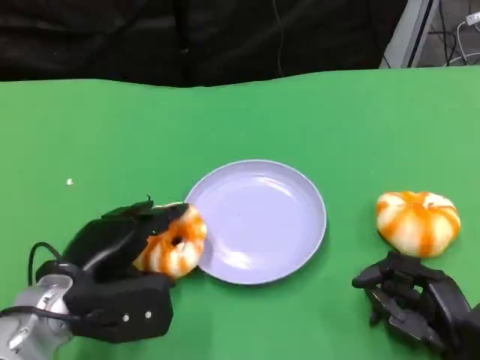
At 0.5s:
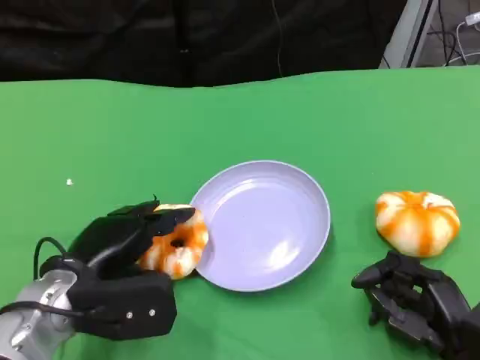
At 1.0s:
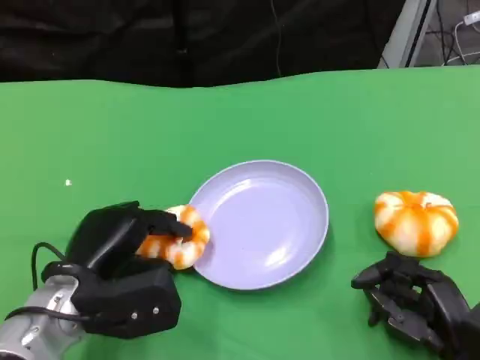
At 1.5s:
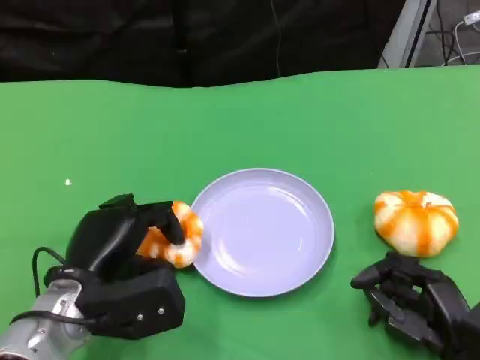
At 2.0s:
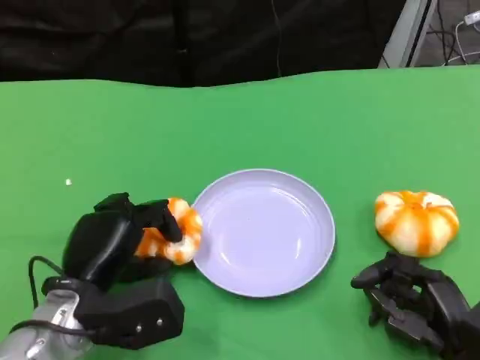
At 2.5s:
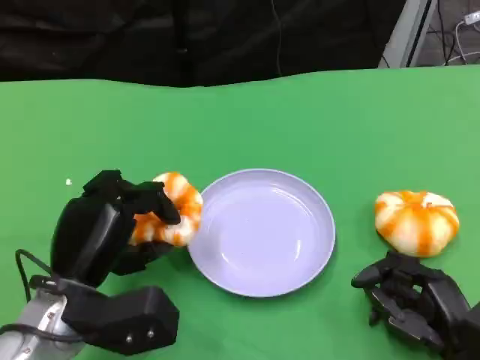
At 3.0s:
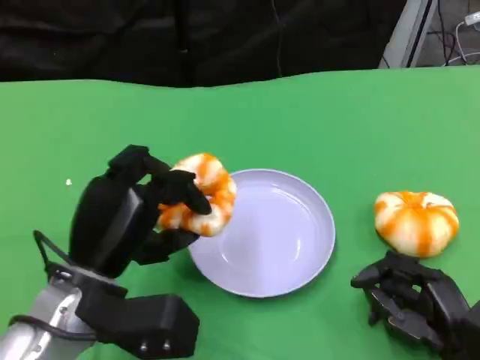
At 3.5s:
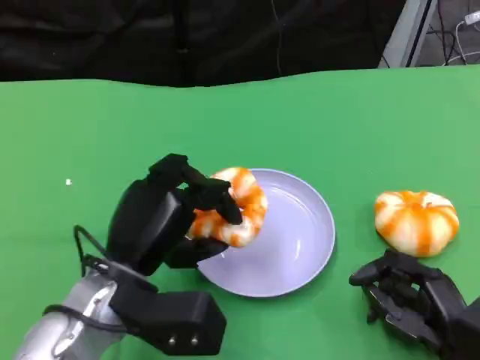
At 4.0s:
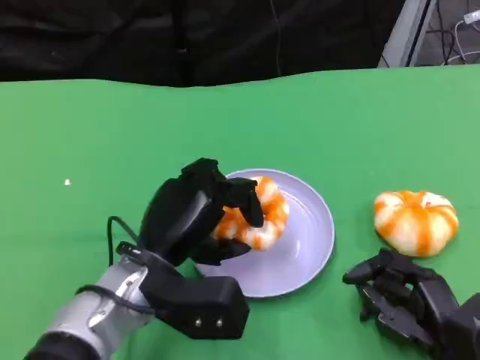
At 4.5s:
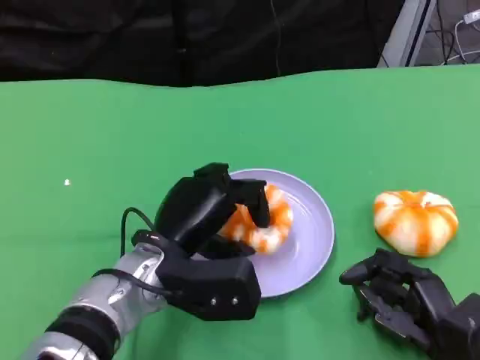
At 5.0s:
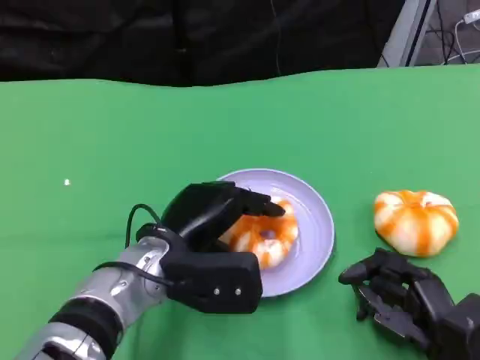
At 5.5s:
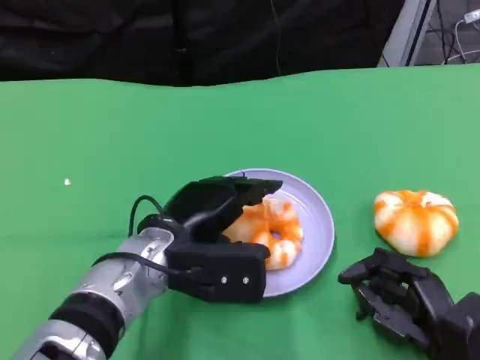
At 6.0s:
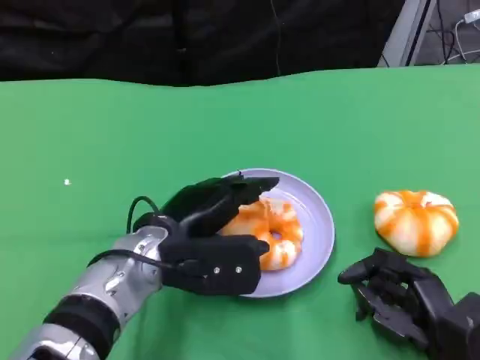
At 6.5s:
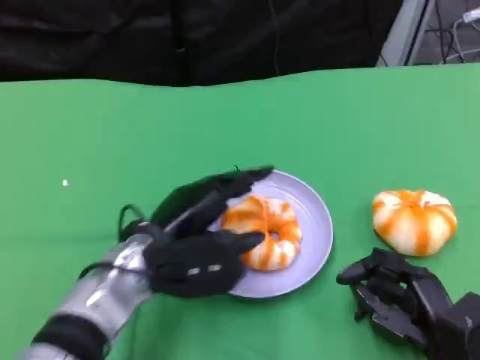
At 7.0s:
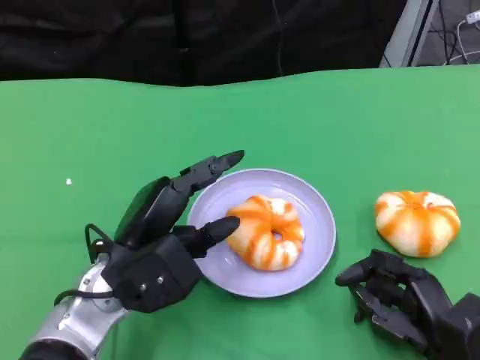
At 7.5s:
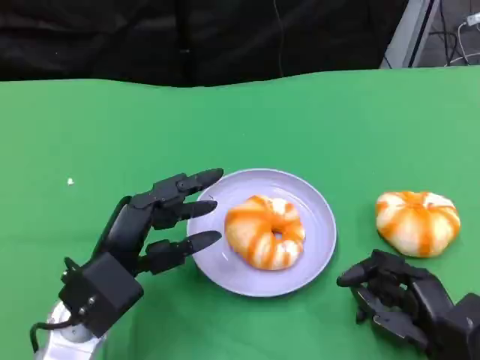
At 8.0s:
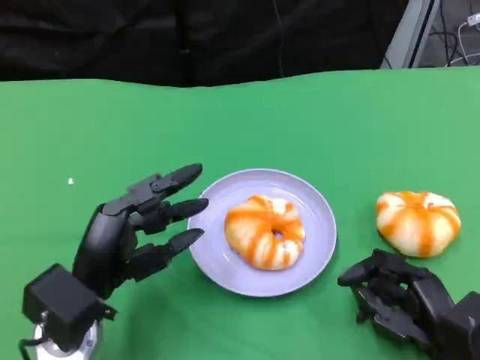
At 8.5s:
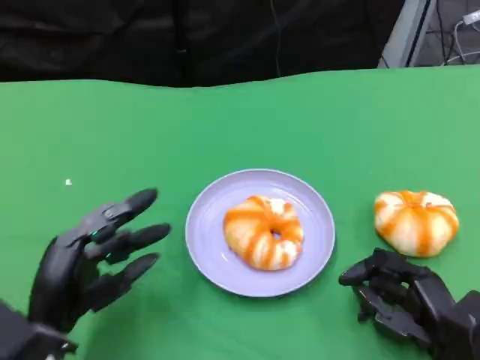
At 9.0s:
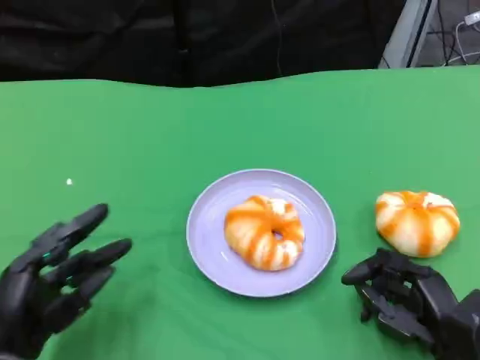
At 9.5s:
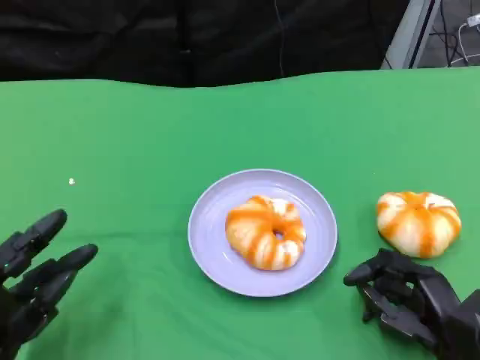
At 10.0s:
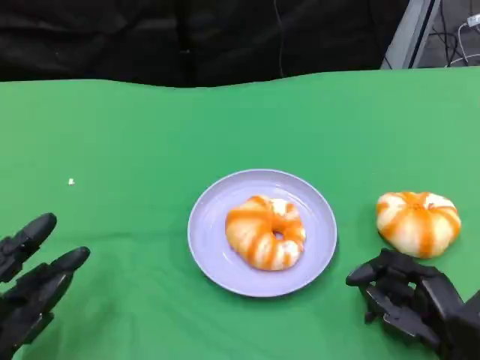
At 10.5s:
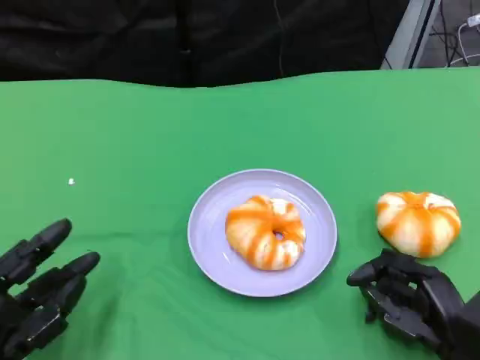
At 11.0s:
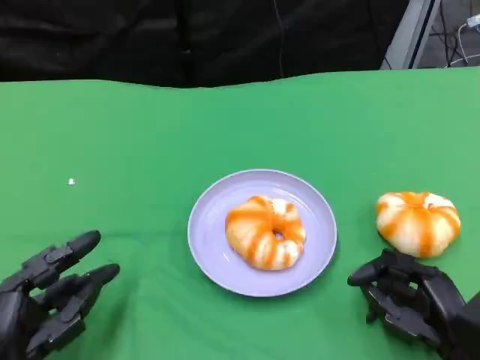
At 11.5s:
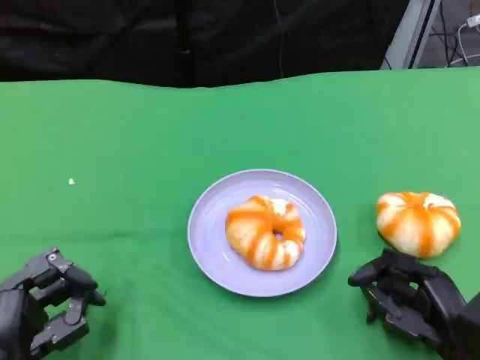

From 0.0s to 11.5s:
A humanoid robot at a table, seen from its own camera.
Task of the whole recording: Grasp the bread from the table and place it into the plate.
From 2.0s to 4.0s: The left hand heads to the right, covering some 5 cm.
From 6.0s to 7.5s: The left hand goes some 5 cm to the left.
From 7.5s to 9.5s: The left hand goes some 10 cm to the left and backward.
From 9.5s to 11.5s: The hands make only small movements.

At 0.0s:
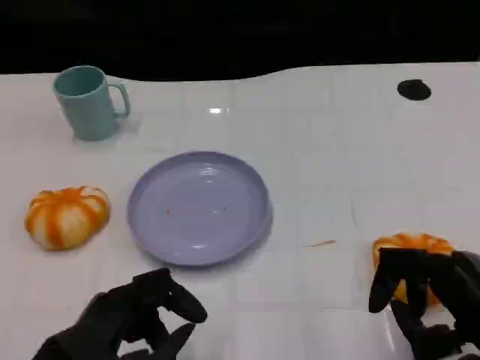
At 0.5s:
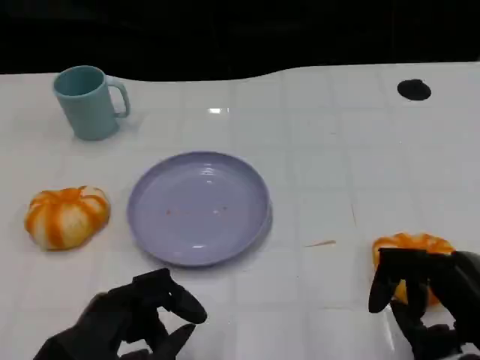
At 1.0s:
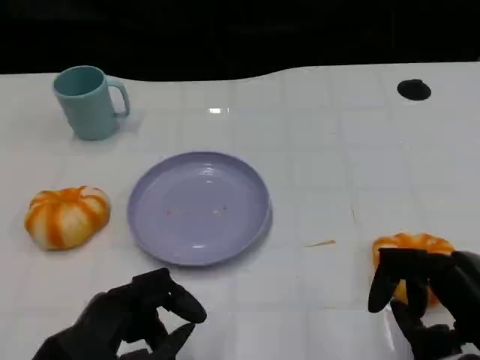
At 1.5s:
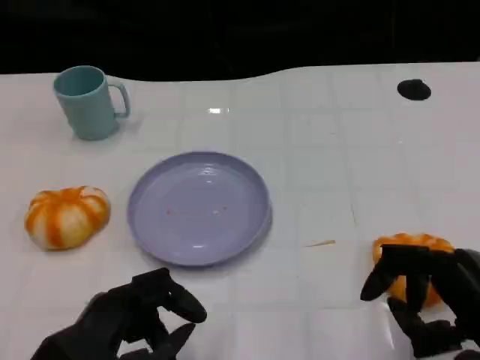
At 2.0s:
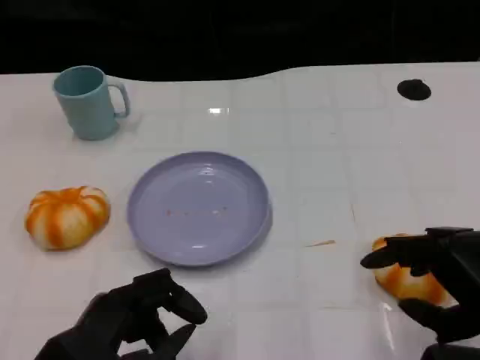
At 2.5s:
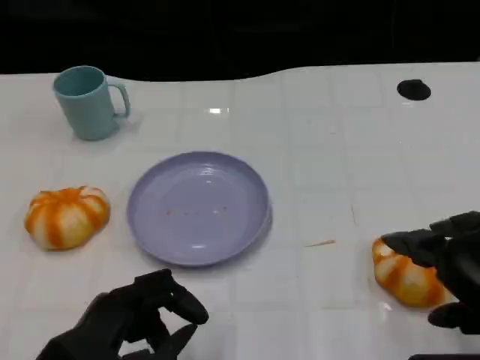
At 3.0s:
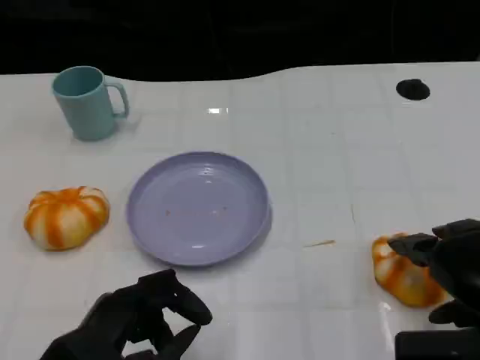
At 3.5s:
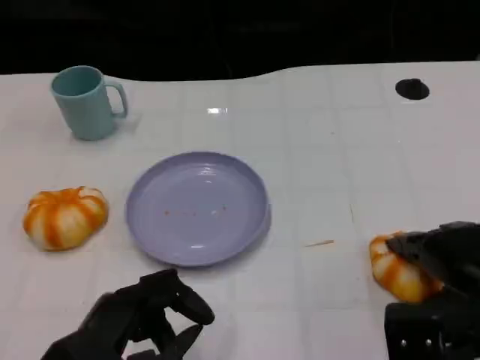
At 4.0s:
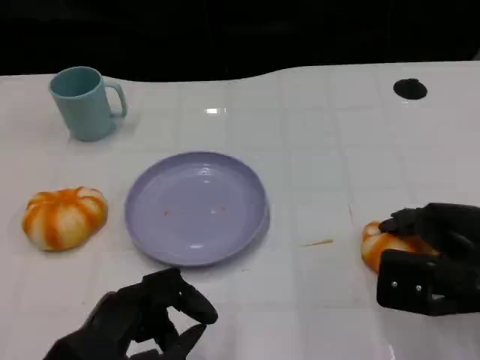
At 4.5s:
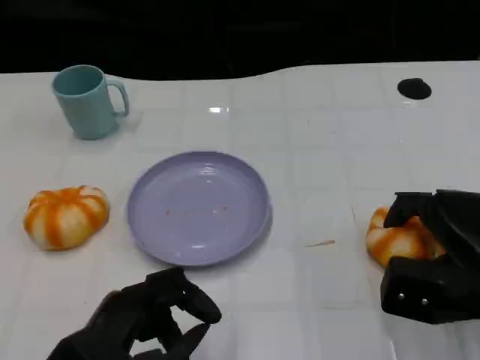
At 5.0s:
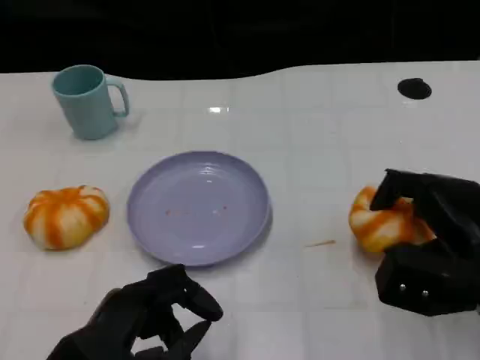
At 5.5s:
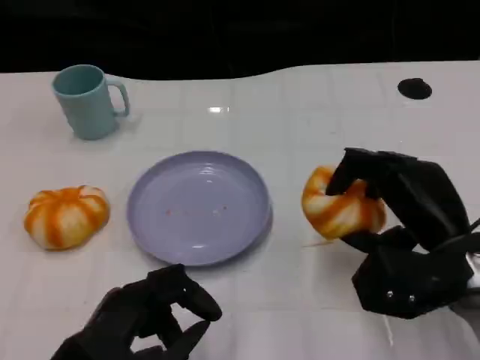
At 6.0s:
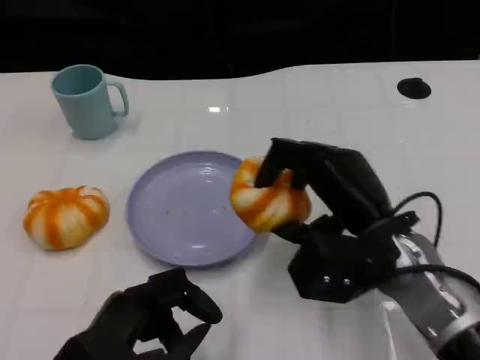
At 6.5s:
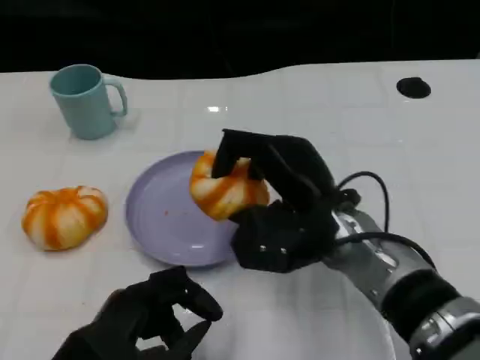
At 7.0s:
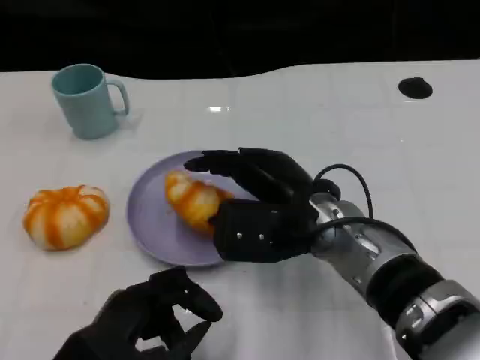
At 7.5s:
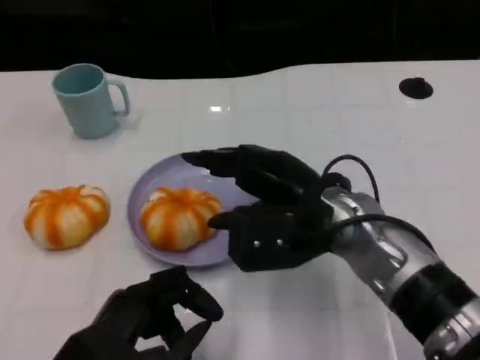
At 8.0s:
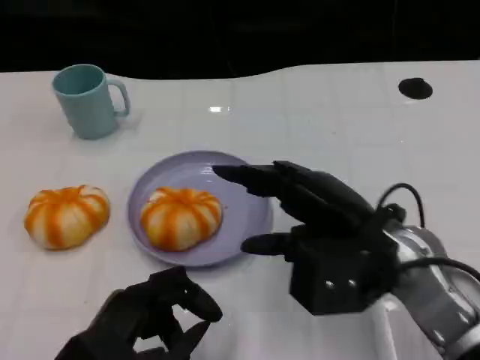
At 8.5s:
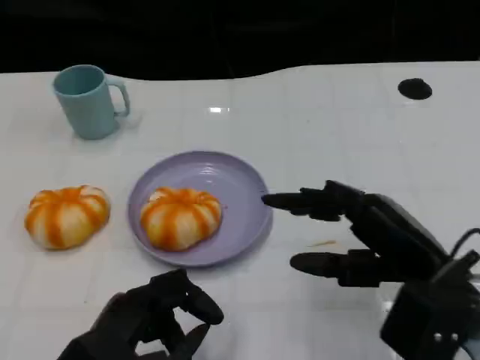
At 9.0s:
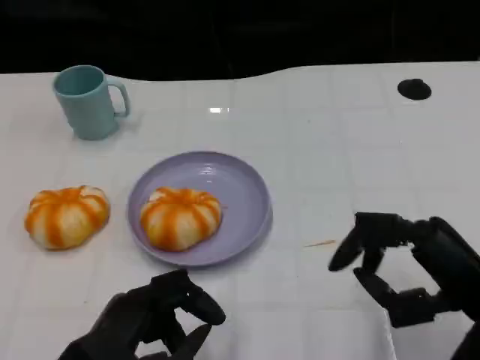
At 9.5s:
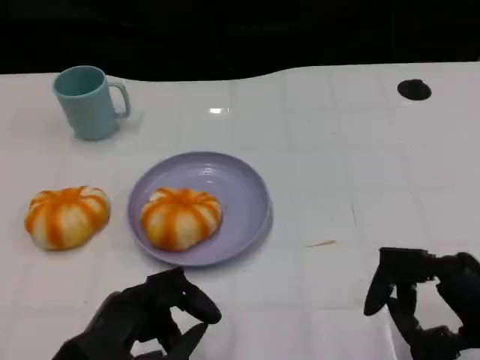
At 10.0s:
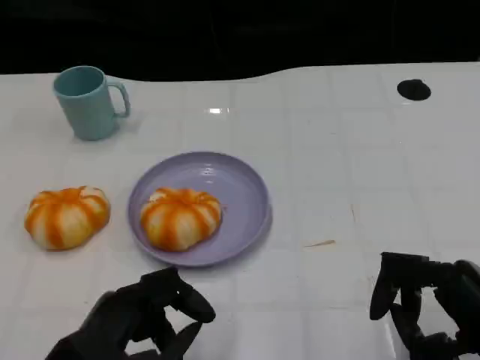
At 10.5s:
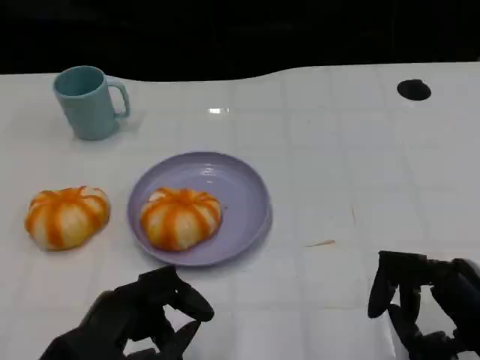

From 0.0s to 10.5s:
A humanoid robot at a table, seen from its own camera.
Task of the whole recording: Grasp the bread from the table and place it into the plate.
From 0.0s to 2.0s: The right hand shifts about 5 cm upward.
From 2.0s to 4.0s: The right hand shifts approximately 10 cm forward and downward.
From 4.0s to 6.5s: The right hand heads to the left, covering roughly 15 cm.
From 6.5s to 8.5s: The right hand travels to the right and backward by approximately 15 cm.
From 8.5s to 10.5s: The right hand is displaced backward by roughly 5 cm.

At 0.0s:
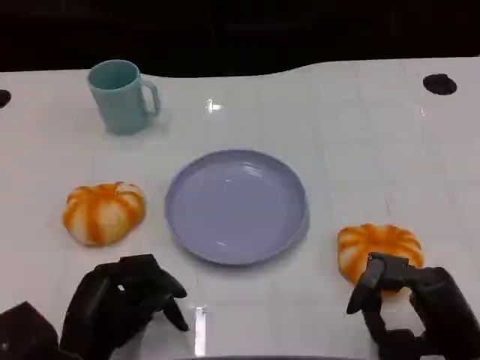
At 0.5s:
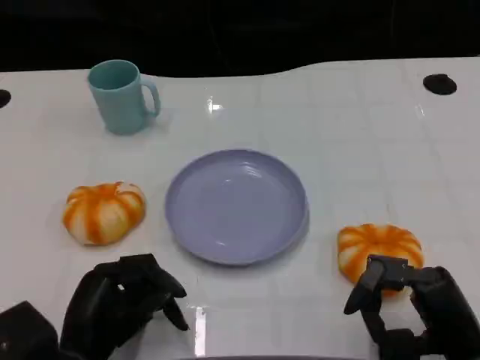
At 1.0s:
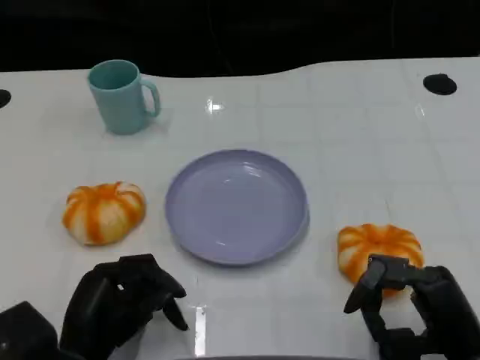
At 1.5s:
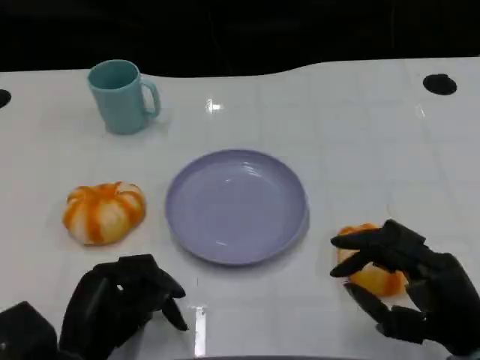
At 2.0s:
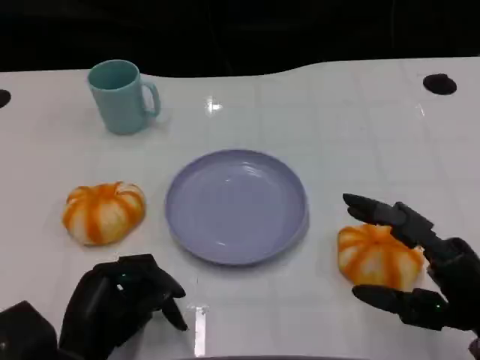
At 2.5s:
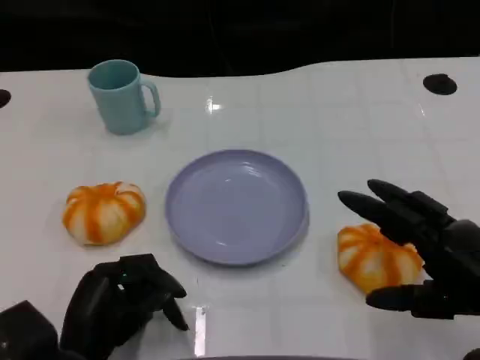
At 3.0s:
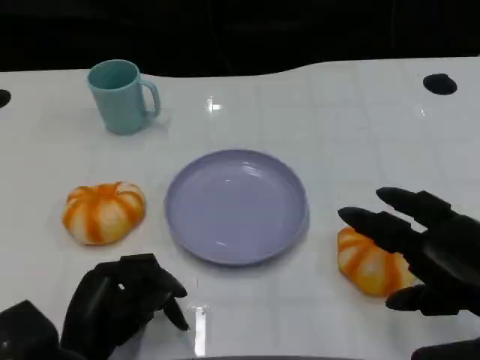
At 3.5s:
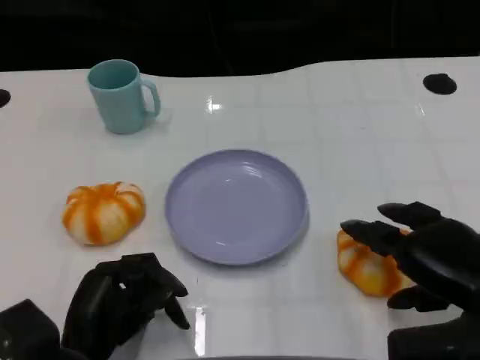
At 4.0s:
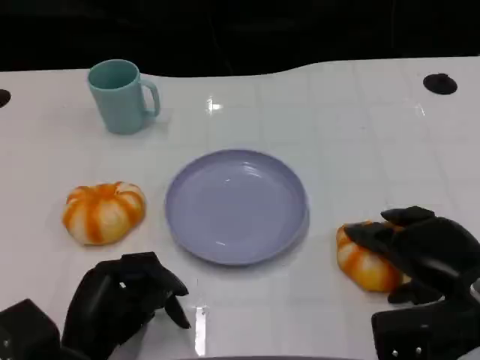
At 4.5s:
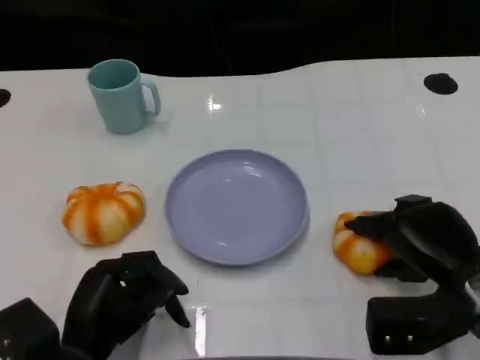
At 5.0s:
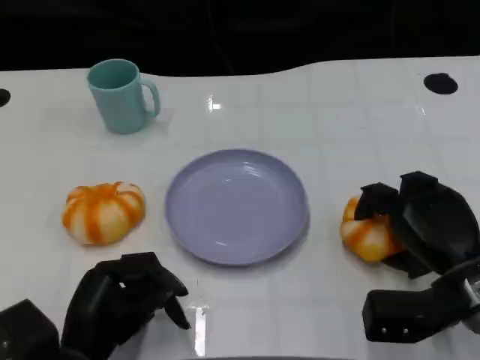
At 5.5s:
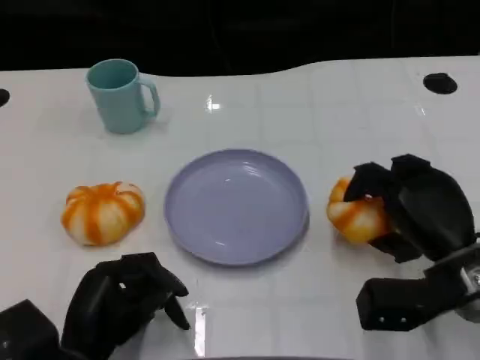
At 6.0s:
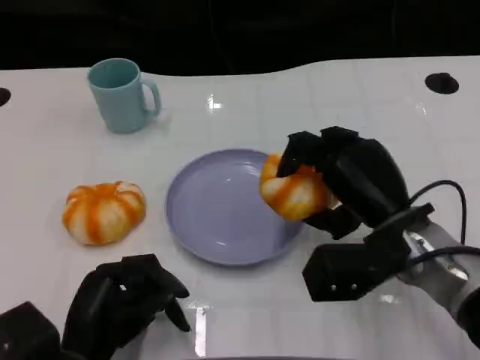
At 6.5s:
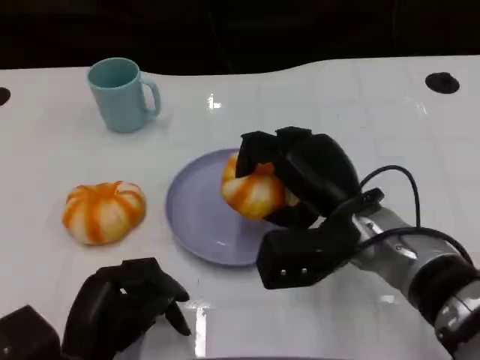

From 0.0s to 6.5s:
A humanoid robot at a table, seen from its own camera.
Task of the whole recording: Grasp the bread from the table and place it into the plate.
From 0.0s to 2.0s: The right hand shifts by some 5 cm.
From 2.0s to 4.5s: The right hand goes approximately 5 cm forward.
From 4.5s to 6.5s: The right hand moves to the left, approximately 10 cm.
